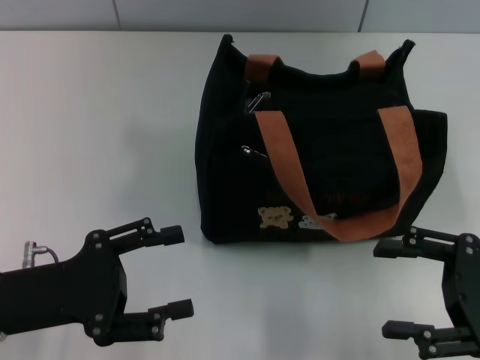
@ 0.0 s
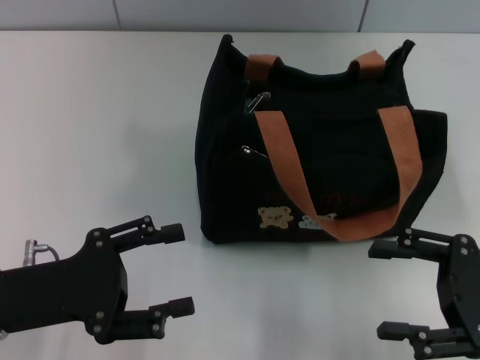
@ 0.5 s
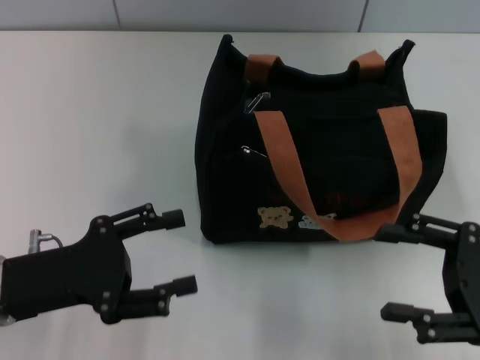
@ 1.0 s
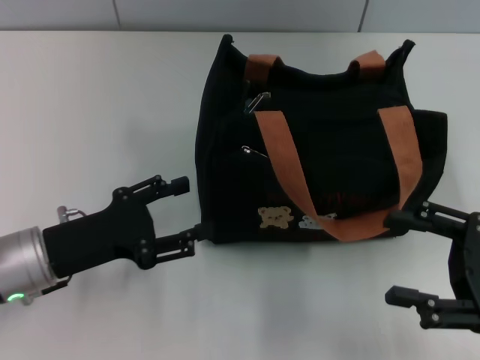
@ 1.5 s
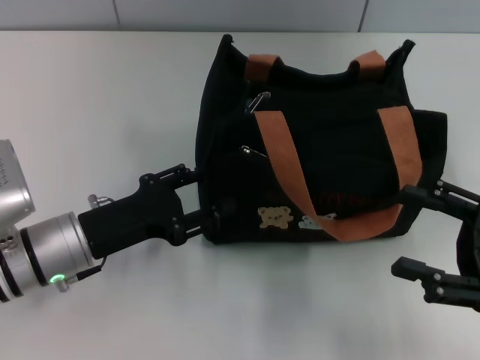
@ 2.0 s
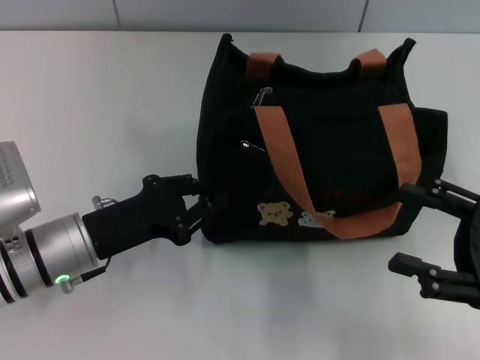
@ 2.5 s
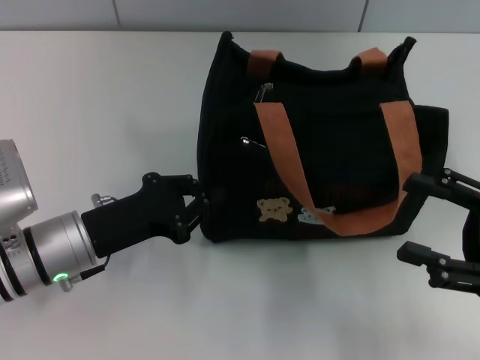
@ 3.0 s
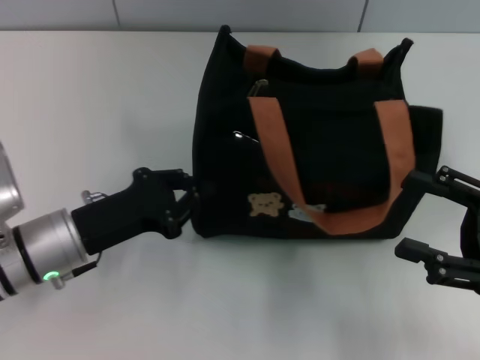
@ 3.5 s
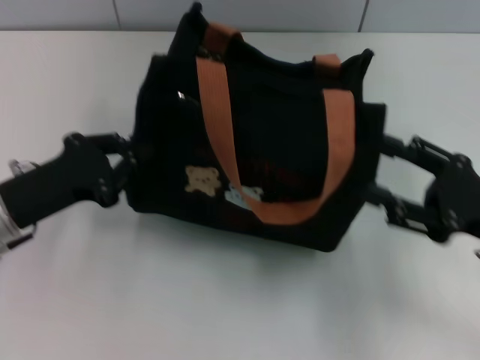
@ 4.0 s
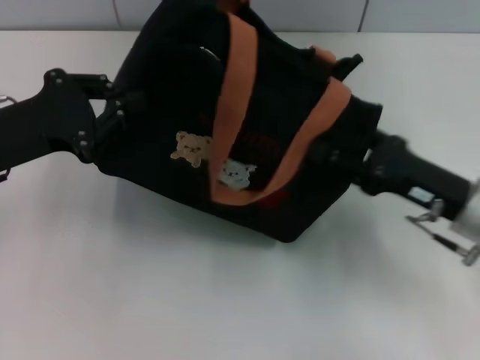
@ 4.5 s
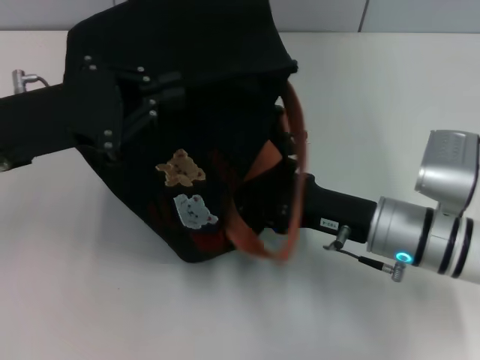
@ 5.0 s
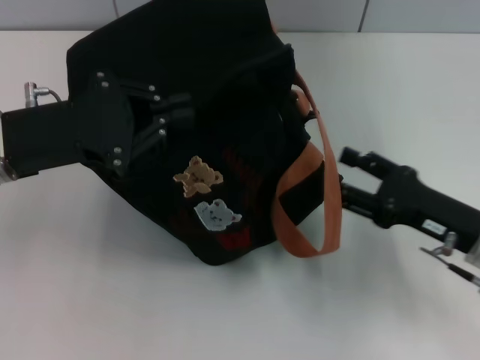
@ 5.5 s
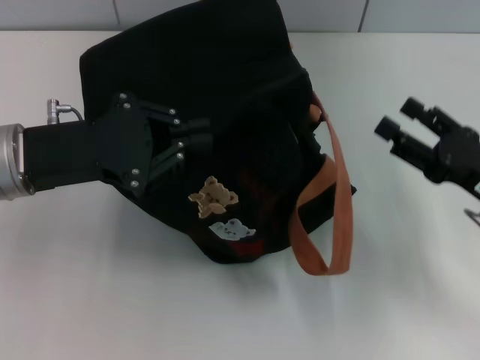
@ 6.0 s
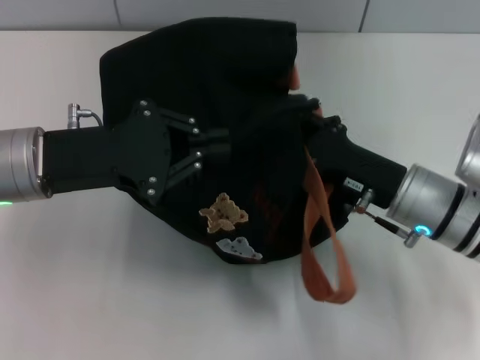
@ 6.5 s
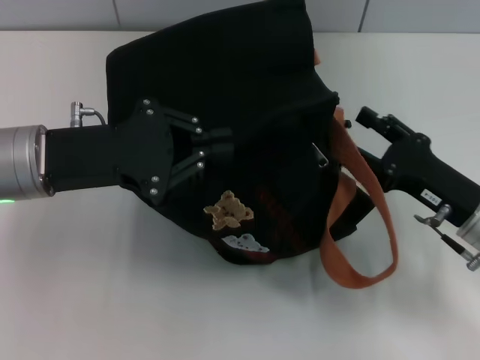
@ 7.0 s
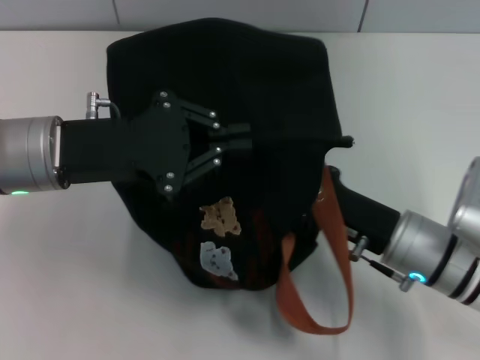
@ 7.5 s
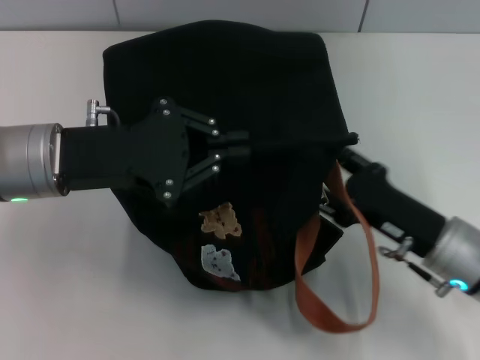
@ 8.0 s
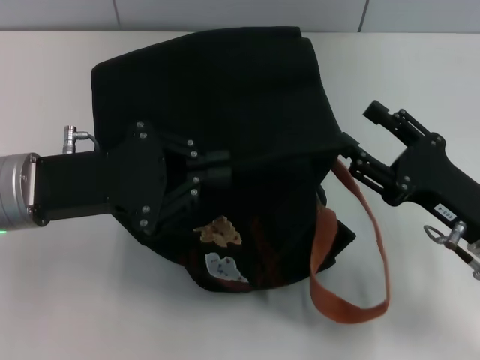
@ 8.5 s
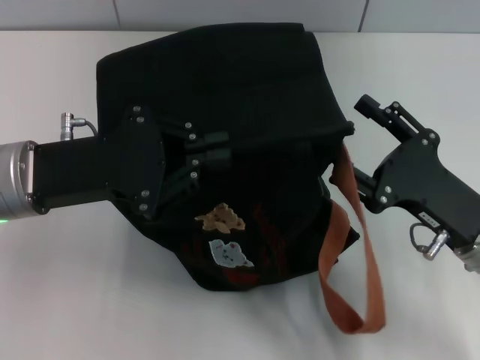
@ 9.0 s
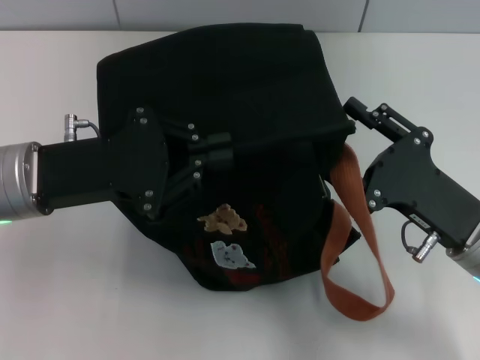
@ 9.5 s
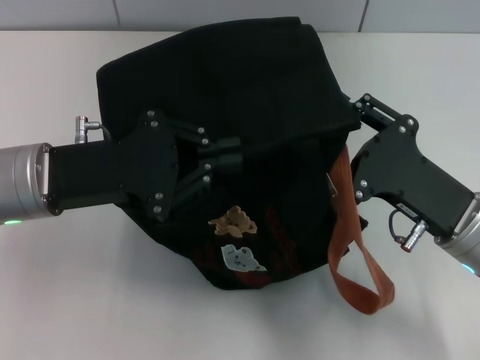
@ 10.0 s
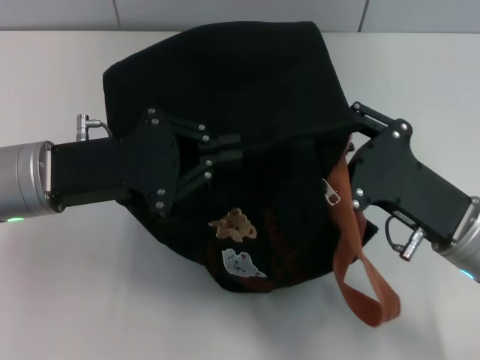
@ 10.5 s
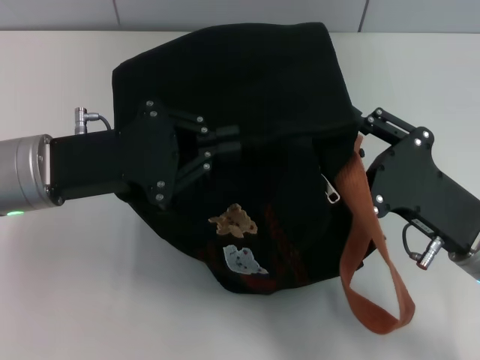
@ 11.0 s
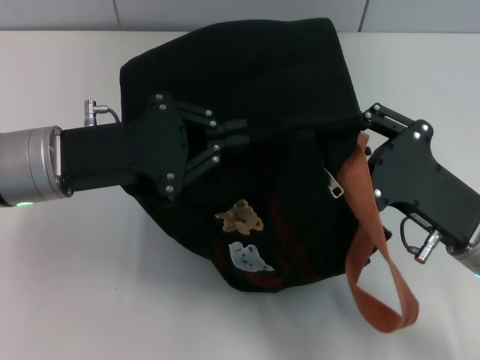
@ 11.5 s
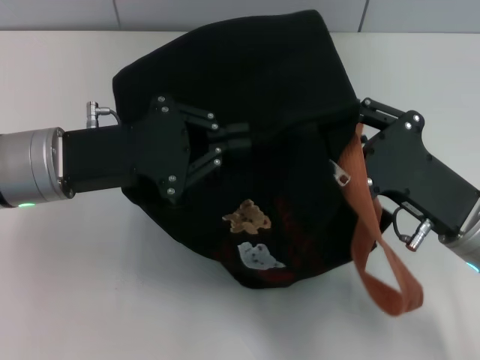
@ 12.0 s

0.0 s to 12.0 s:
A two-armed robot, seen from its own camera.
0.0 to 2.0 s: The left gripper heads forward, covering approximately 5 cm.
2.0 to 4.0 s: The left gripper heads to the left, covering roughly 5 cm, and closes up.
4.0 to 6.0 s: The left gripper travels upward by roughly 5 cm. The right gripper moves roughly 10 cm to the left and comes back.
6.0 to 8.0 s: The right gripper swings left and right, approximately 10 cm each way, with 3 reversals.
10.0 to 12.0 s: The grippers make only small movements.

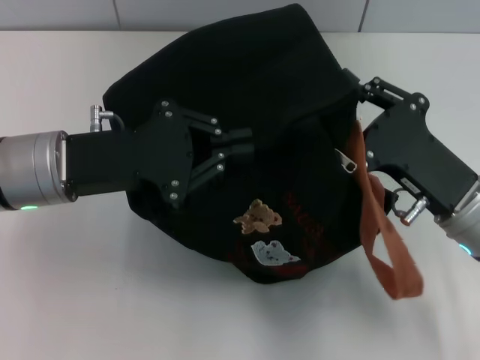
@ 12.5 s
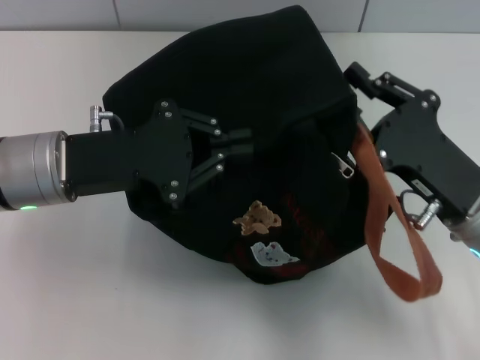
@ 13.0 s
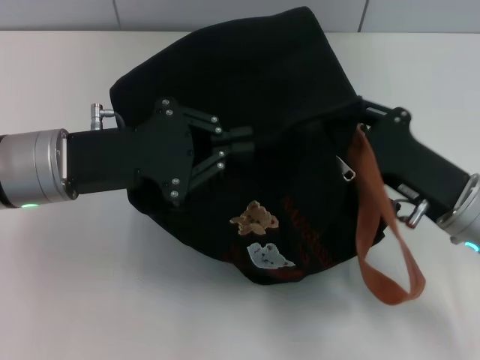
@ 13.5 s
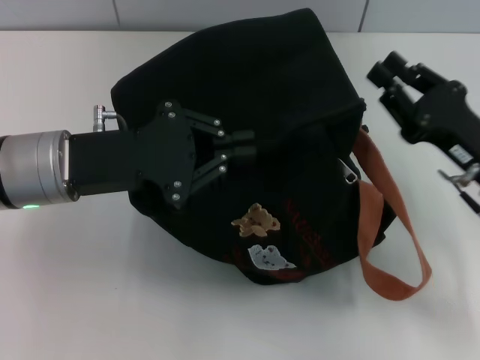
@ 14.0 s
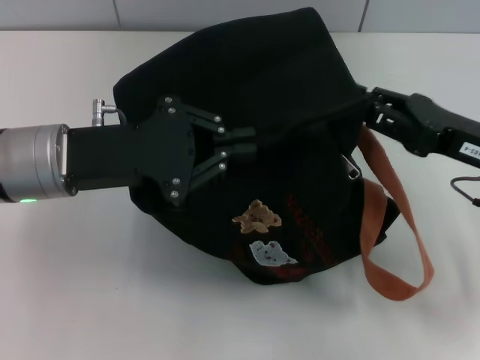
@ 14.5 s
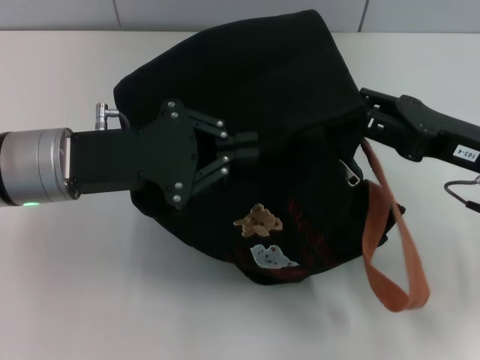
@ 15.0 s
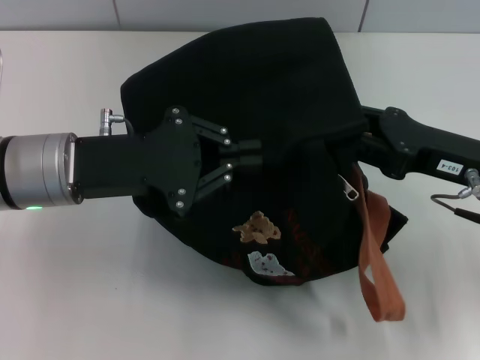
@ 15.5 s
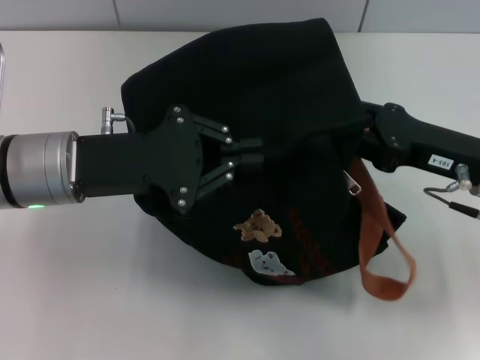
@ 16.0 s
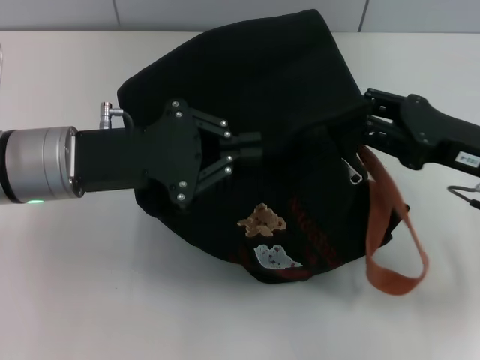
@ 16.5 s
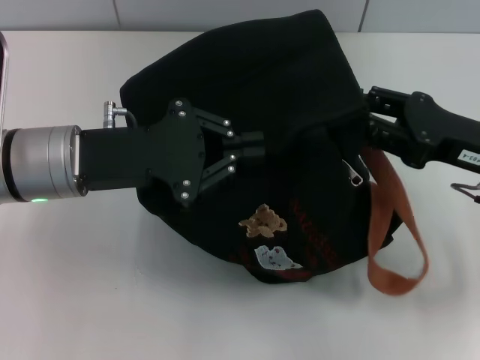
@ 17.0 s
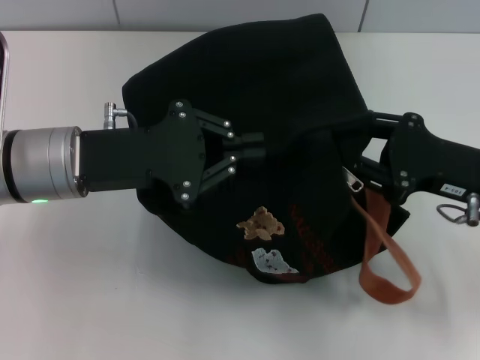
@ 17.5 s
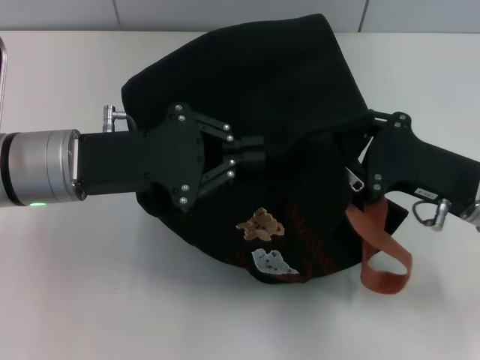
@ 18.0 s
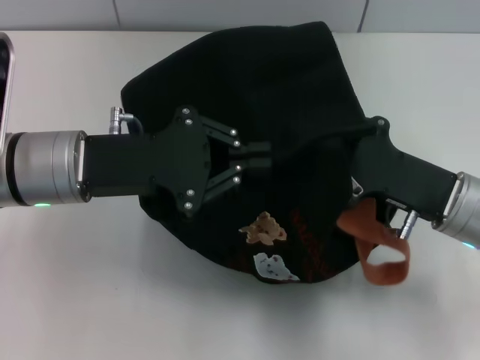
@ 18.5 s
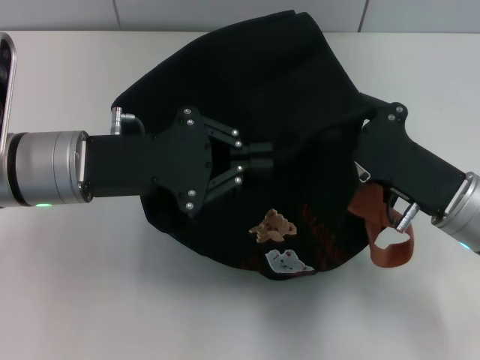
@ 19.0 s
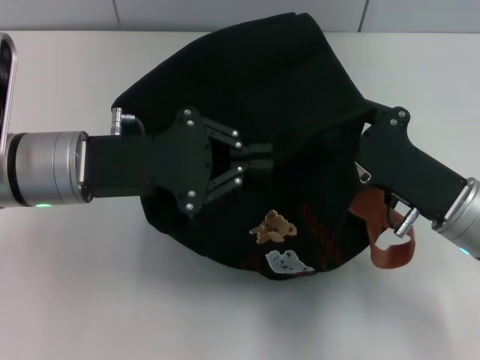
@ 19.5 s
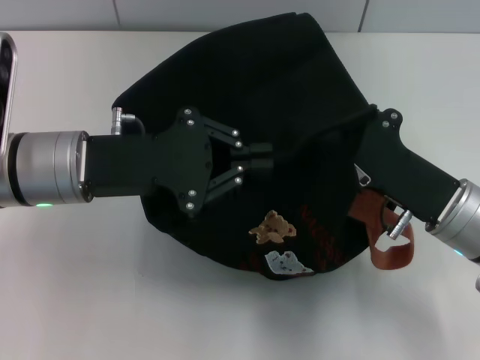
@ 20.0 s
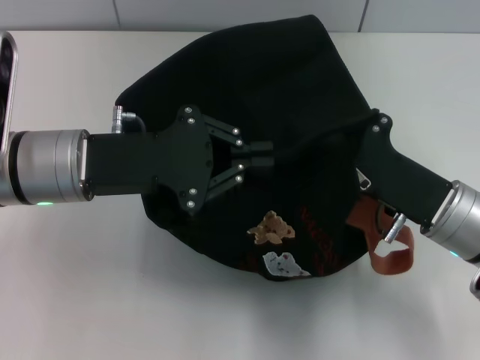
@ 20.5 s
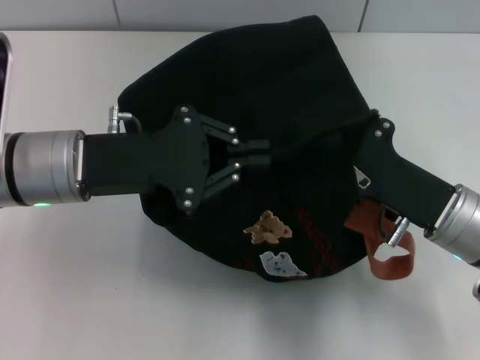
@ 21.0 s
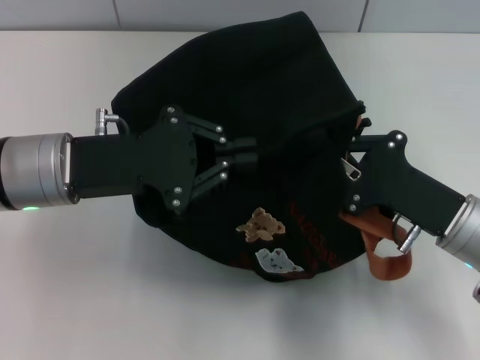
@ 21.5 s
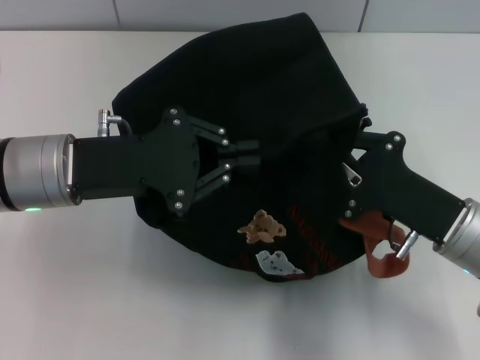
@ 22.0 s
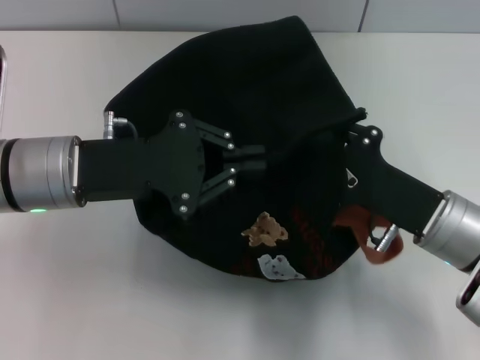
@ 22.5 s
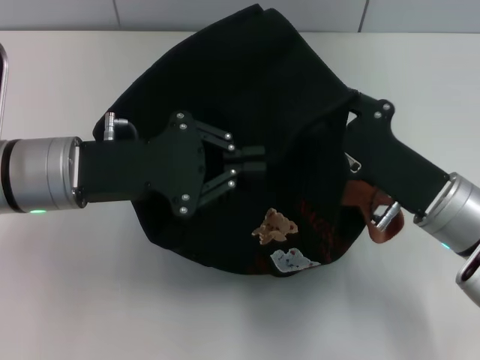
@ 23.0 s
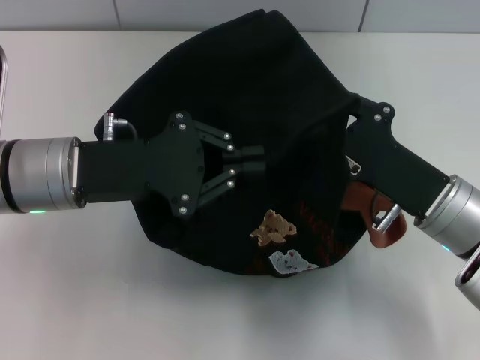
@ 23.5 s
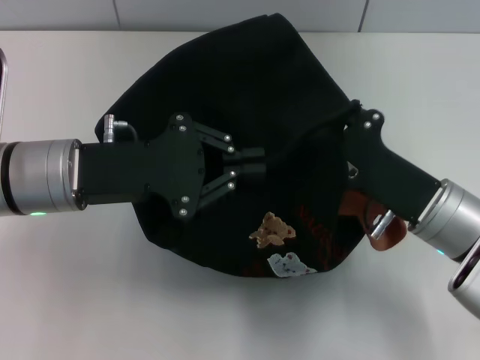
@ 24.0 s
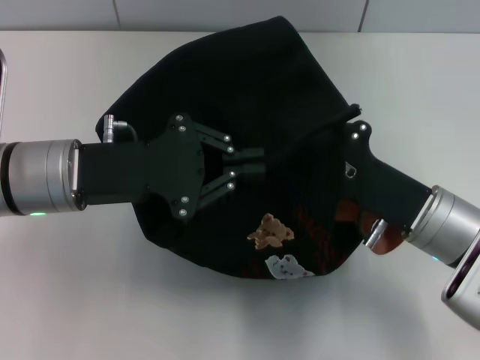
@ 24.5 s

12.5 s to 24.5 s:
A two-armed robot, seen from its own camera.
12.5 to 14.5 s: The right gripper travels to the right by approximately 5 cm.
14.5 to 16.5 s: The grippers stay close to where they were, moving slightly.
16.5 to 18.5 s: The right gripper changes place by about 5 cm.
18.5 to 20.5 s: The right gripper closes up.
20.5 to 22.5 s: The right gripper opens.
22.5 to 24.5 s: There are only small adjustments of the grippers.

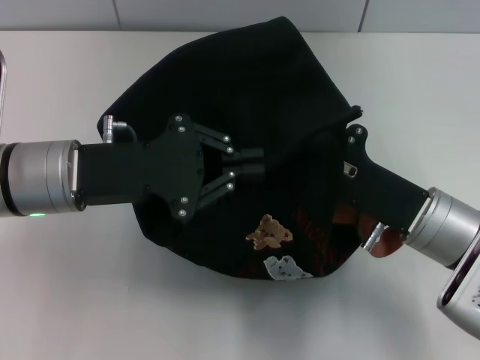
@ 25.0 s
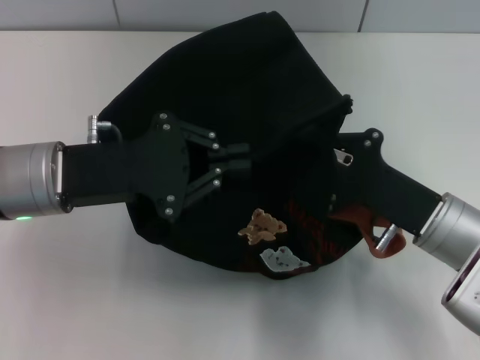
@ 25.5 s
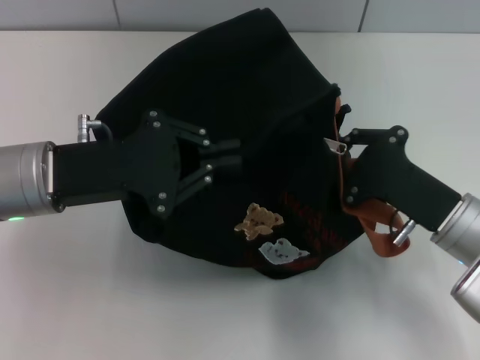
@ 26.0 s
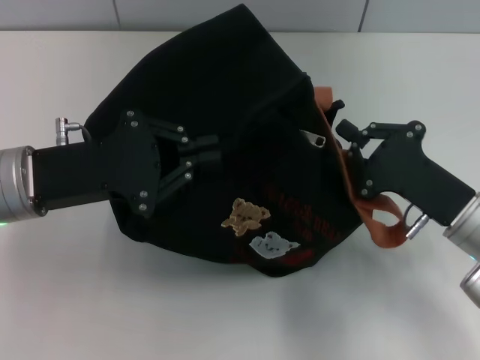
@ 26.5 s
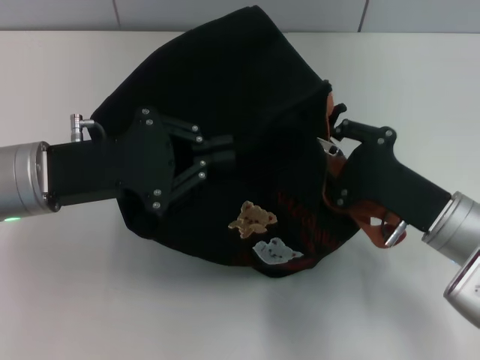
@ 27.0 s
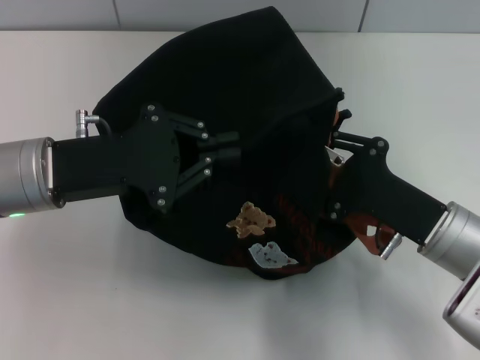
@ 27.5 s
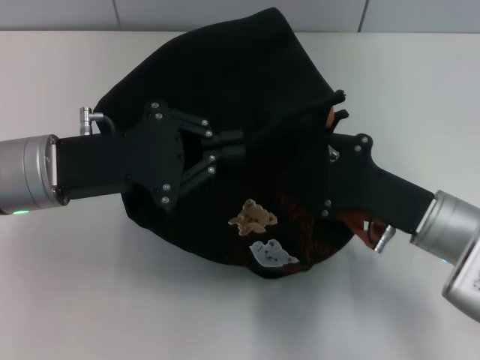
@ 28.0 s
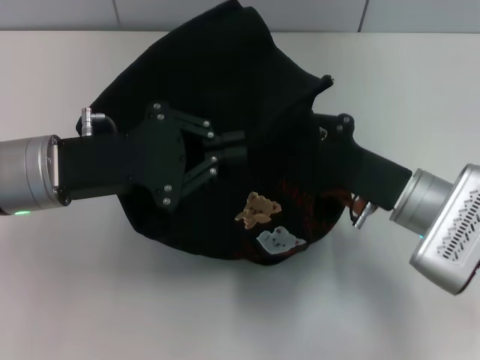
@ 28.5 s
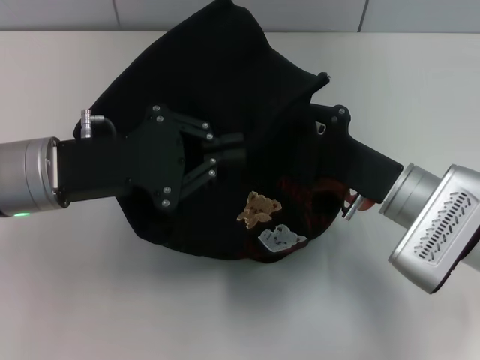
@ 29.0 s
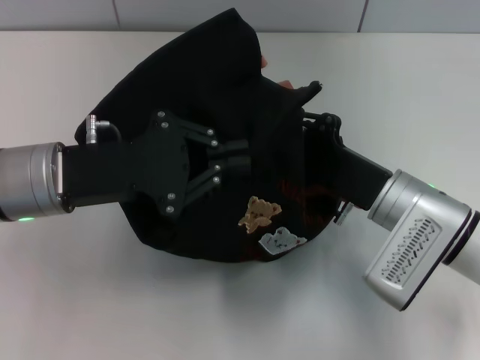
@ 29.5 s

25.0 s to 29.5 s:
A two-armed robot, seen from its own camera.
25.0 to 27.0 s: There are only small adjustments of the grippers.
27.0 to 29.5 s: The right gripper changes place by some 5 cm.
